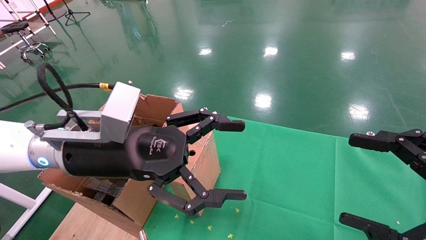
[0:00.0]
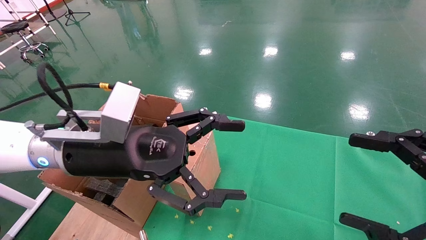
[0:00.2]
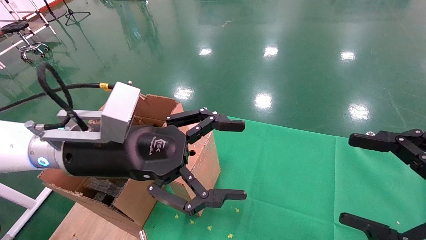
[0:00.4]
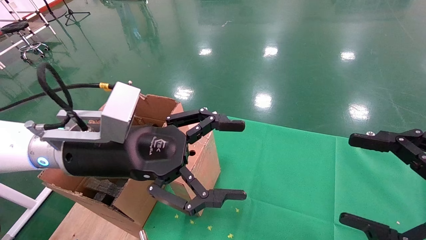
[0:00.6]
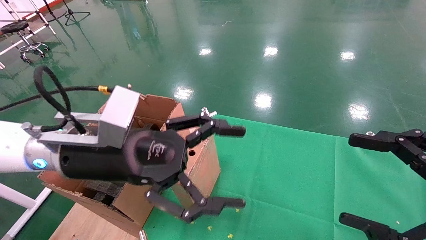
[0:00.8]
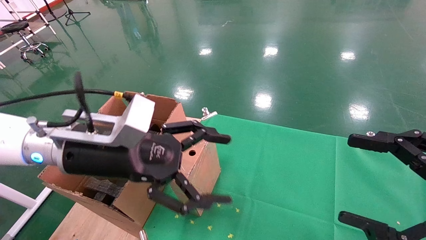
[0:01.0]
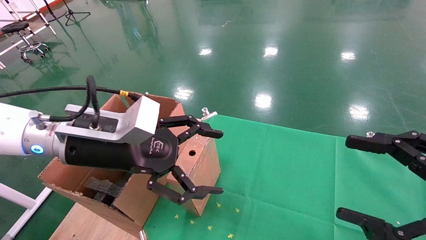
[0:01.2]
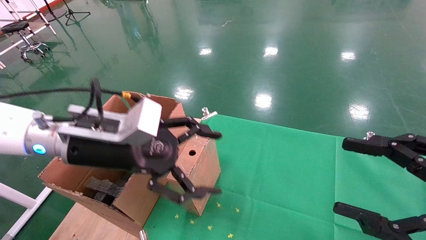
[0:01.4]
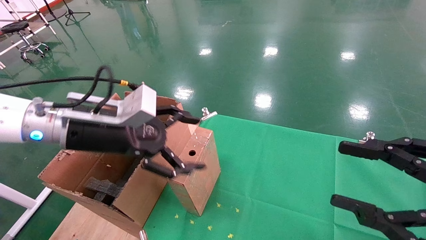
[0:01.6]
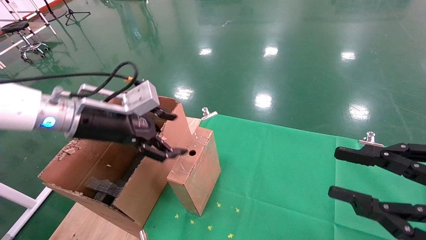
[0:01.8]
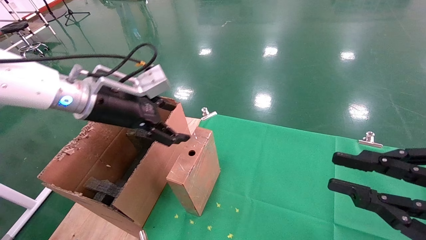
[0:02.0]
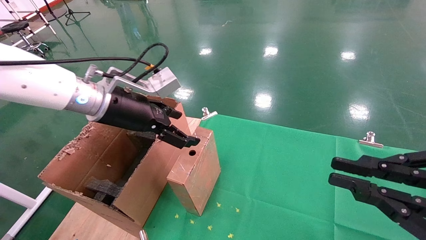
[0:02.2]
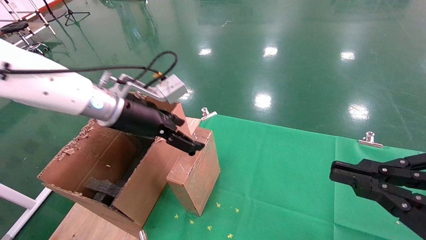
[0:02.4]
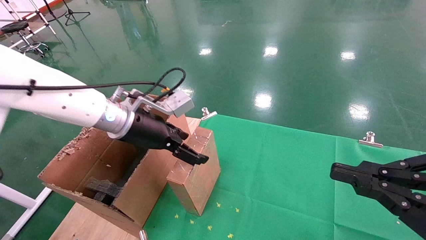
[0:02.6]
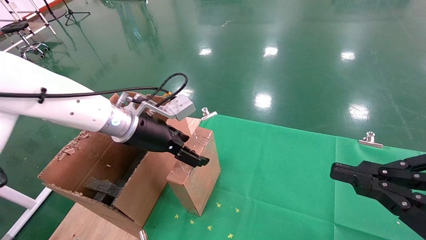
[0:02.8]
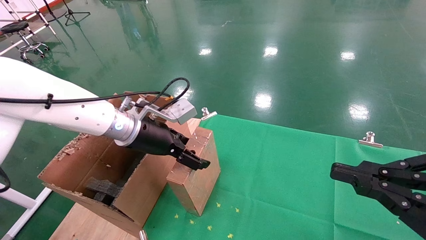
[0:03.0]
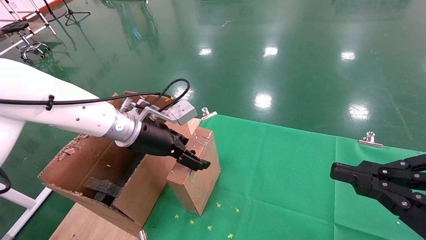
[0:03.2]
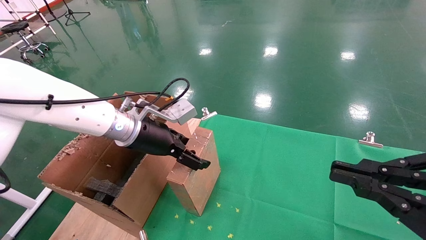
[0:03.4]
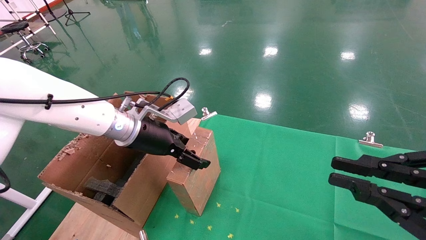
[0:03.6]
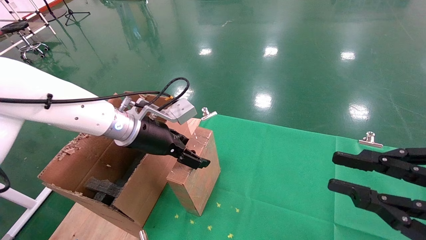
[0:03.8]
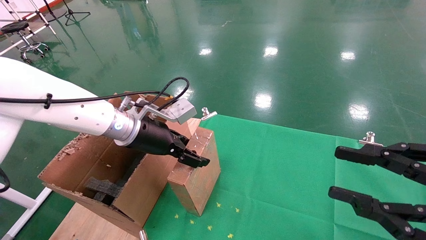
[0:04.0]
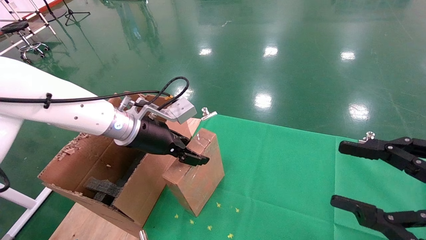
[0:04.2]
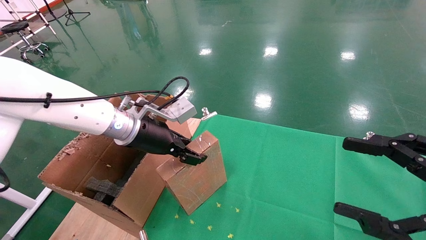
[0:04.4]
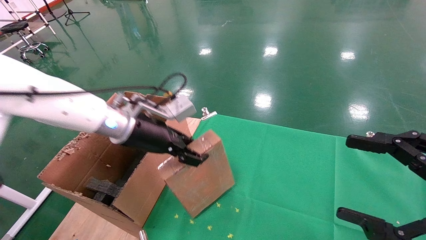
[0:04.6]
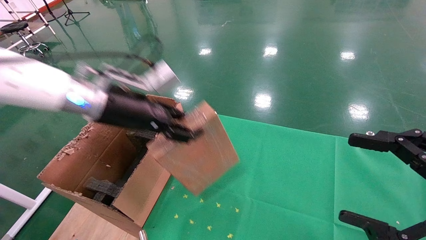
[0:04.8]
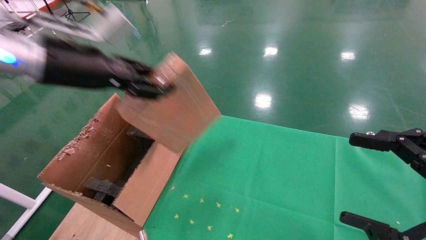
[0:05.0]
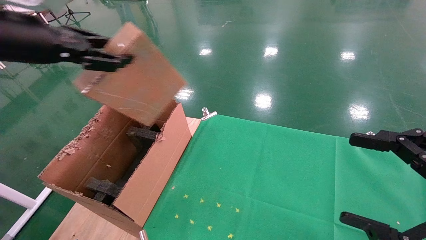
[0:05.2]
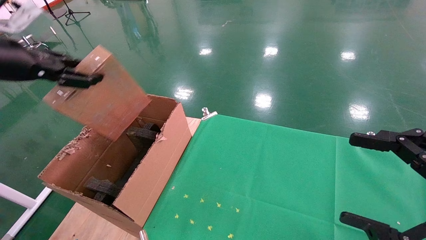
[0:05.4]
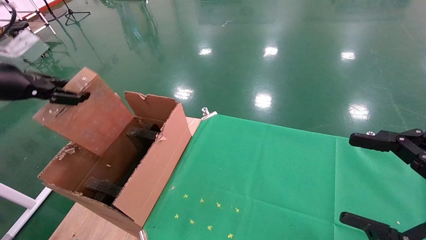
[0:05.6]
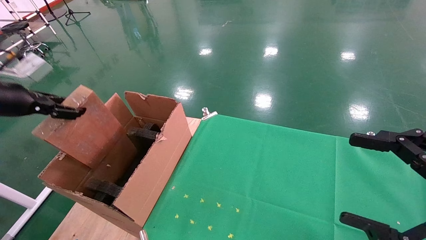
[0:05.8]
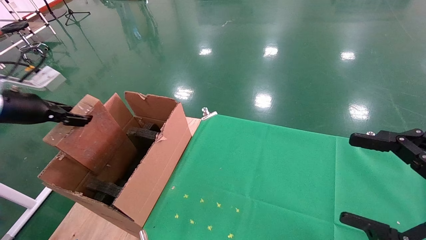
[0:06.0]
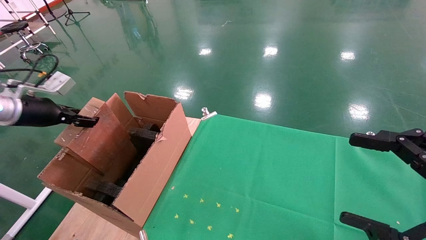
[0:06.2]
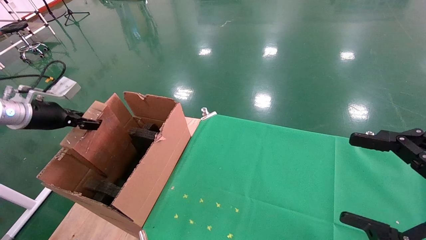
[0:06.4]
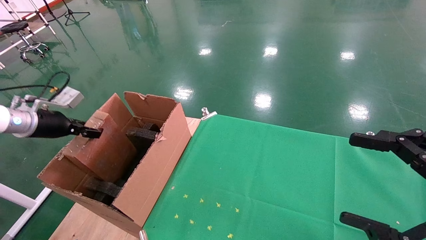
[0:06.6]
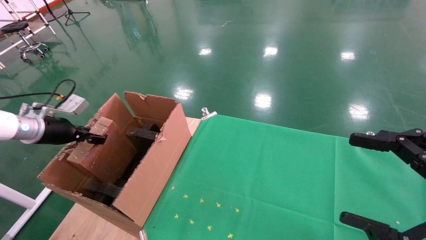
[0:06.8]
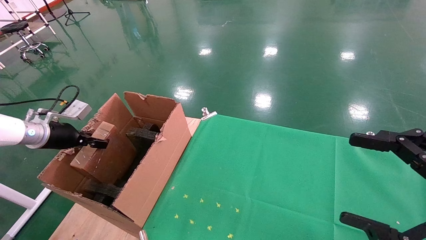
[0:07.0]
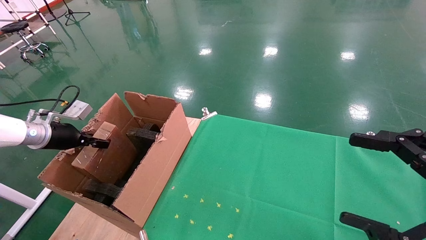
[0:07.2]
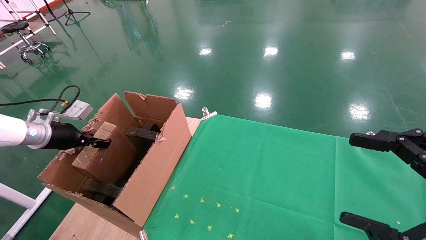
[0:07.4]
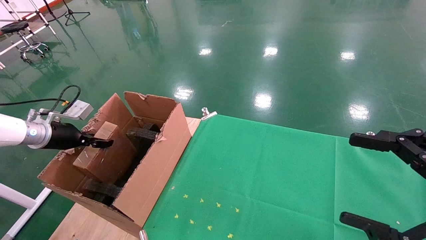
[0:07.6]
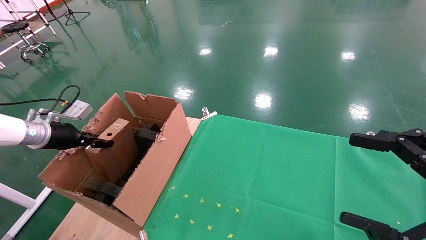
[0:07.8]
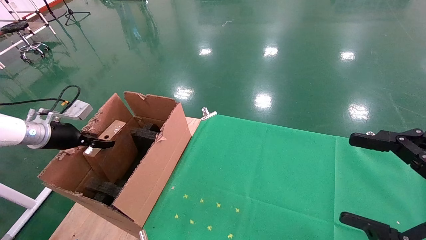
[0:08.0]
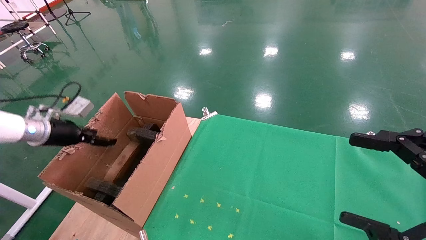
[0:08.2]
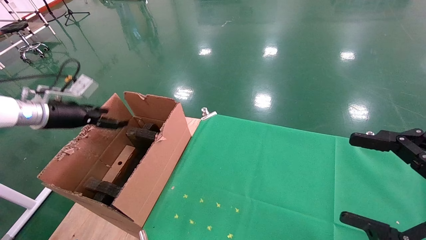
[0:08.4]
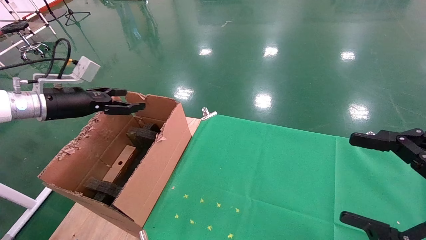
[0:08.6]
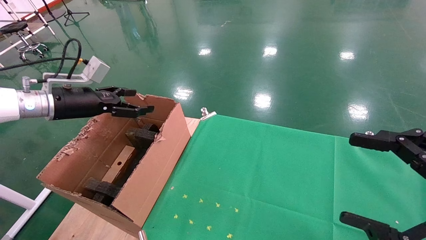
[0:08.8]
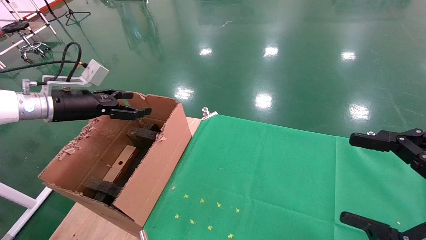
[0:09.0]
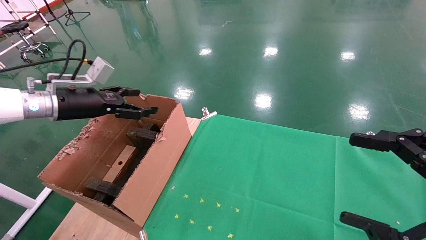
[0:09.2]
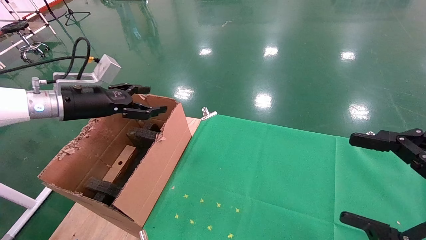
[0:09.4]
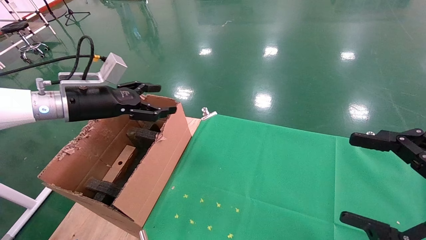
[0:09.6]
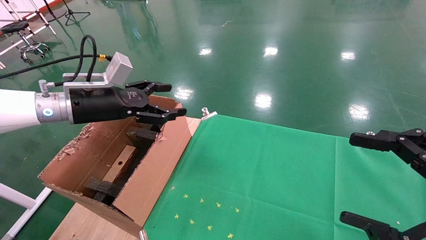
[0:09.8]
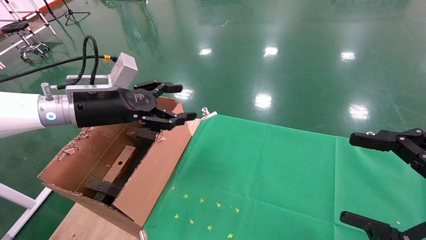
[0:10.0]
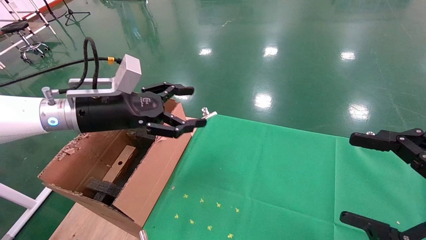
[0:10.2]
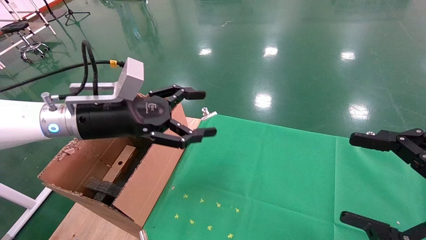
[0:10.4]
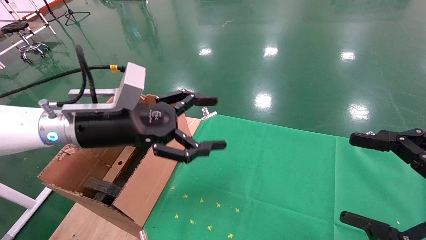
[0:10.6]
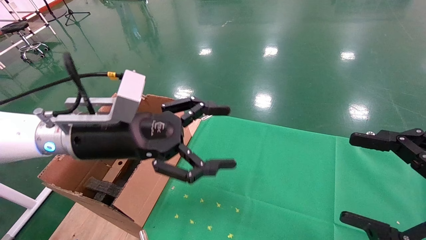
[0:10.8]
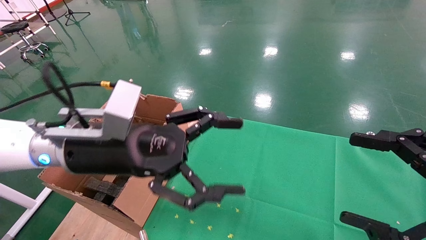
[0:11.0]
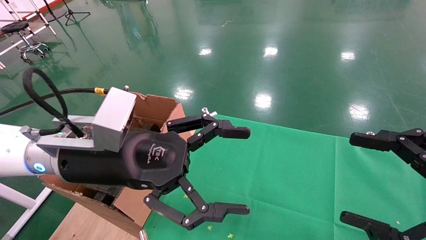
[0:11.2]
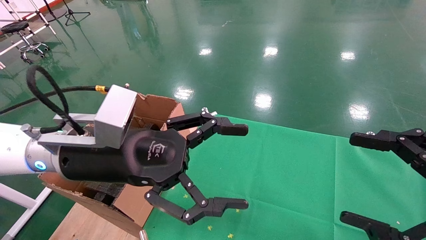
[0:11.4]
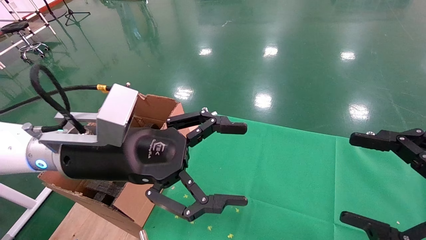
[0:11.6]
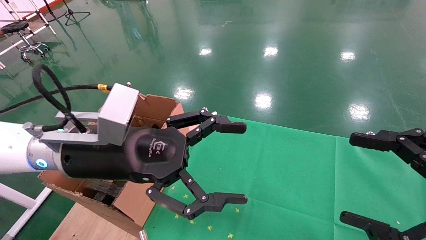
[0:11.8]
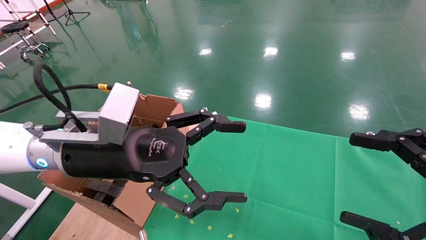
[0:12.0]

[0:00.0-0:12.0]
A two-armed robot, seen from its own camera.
Task of the whole recording: using a robotic arm to pick up a cardboard box and palace it the carton.
Step, 0:01.2 to 0:04.4: Pick up the mouse and the power cord paper box.
Step, 0:04.6 to 0:08.2: Place the mouse and the power cord paper box into the container.
0:00.0 to 0:01.6: The left gripper shifts roughly 5 cm to the left.
0:01.6 to 0:03.0: The right gripper closes. The left gripper shifts some 5 cm forward.
0:03.0 to 0:04.4: The right gripper opens its fingers; the left gripper closes its fingers.
0:04.4 to 0:06.0: The left gripper moves to the left, about 30 cm; the right gripper opens.
0:06.0 to 0:07.6: The left gripper is displaced downward and forward by approximately 10 cm.
0:07.6 to 0:09.0: The left gripper is displaced to the right and upward by roughly 15 cm, and opens.
0:09.0 to 0:10.4: The left gripper goes approximately 15 cm to the right.
0:10.4 to 0:12.0: The left gripper is displaced backward and to the right by roughly 10 cm.

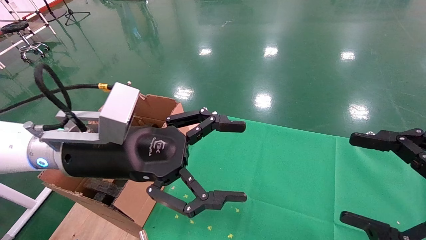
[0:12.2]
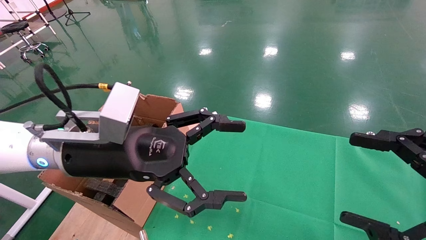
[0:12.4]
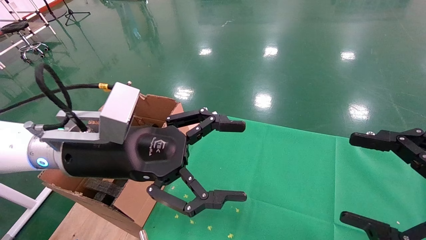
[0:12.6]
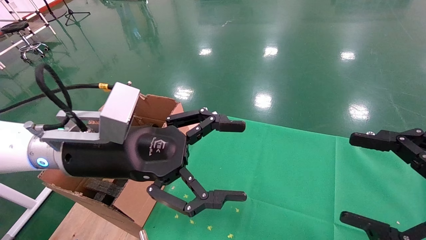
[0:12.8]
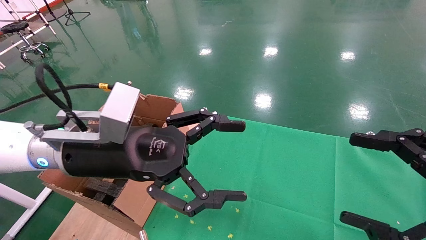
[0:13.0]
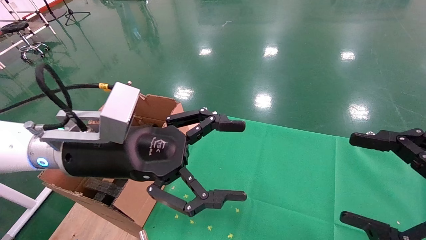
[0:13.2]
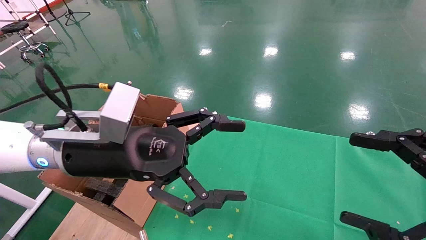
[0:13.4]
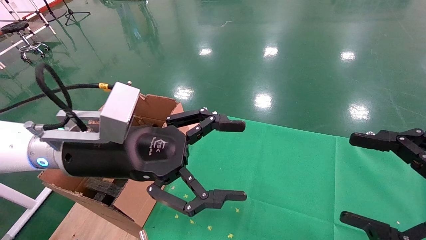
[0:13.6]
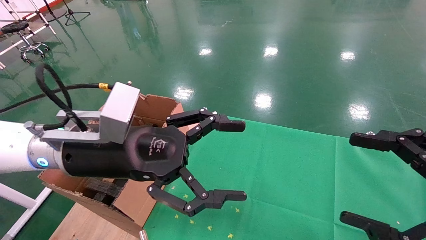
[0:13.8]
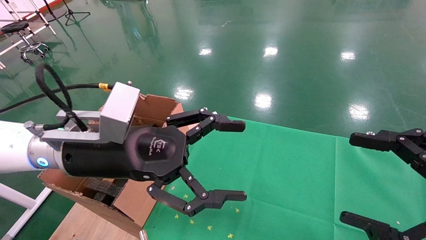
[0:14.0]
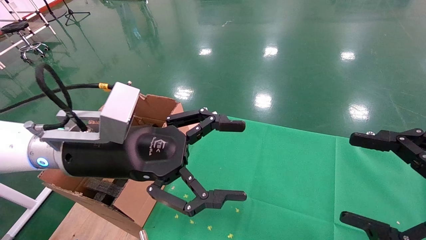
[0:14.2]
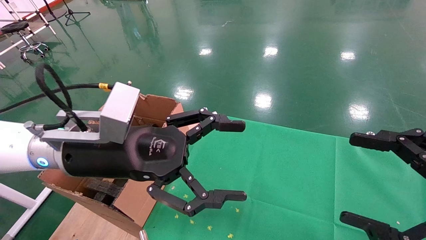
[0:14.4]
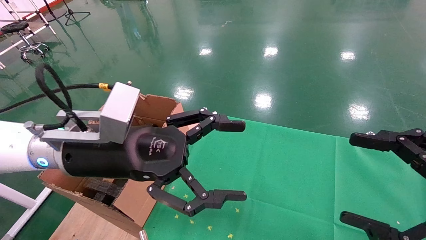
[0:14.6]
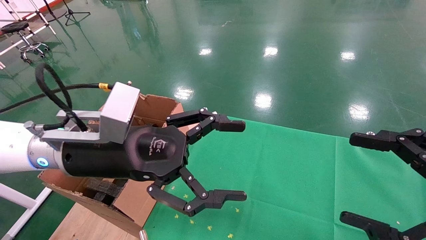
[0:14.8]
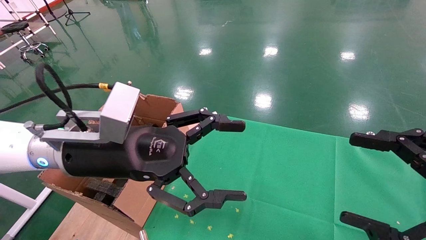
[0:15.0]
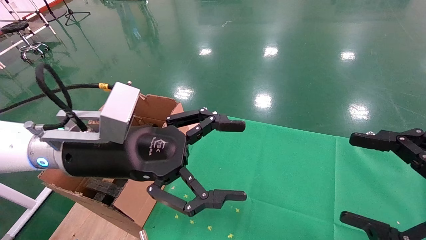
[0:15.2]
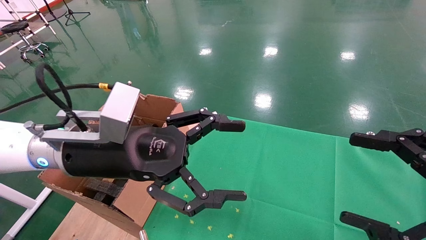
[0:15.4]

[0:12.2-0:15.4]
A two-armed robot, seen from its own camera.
Task of the whole recording: using a robotic arm to pick up a cardboard box and palace it the carton.
0:12.2 to 0:15.4: Neither gripper changes place.
